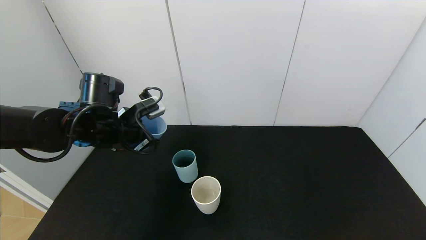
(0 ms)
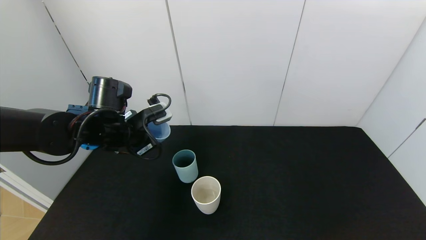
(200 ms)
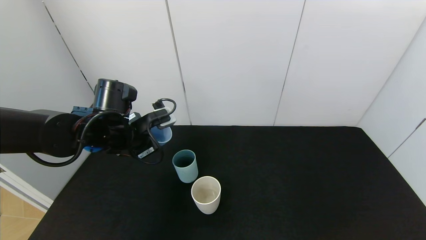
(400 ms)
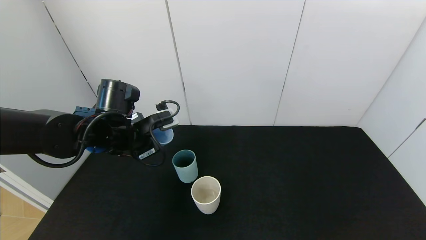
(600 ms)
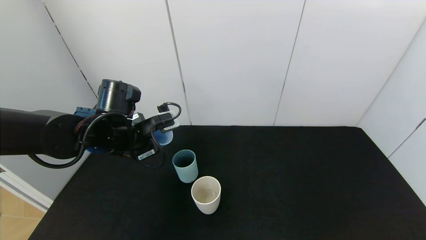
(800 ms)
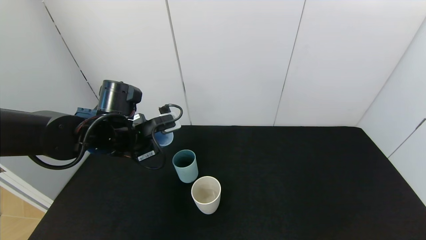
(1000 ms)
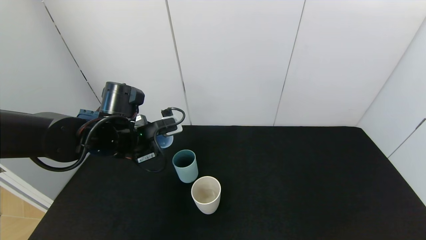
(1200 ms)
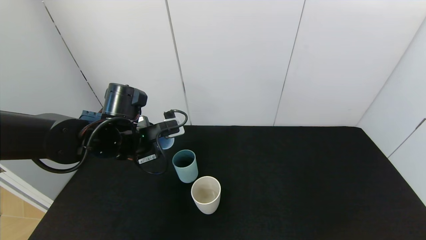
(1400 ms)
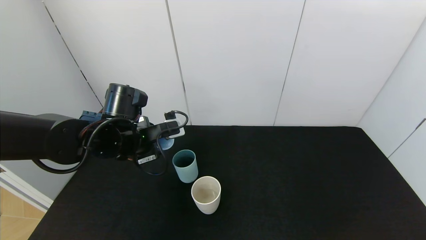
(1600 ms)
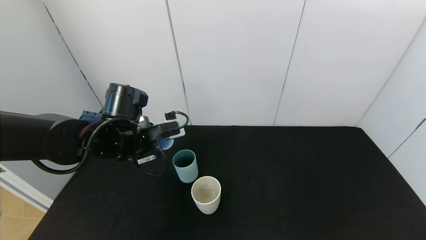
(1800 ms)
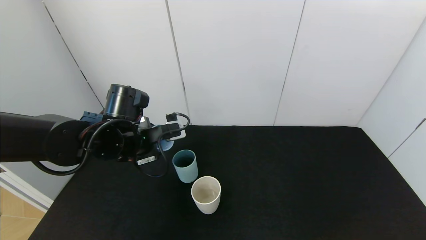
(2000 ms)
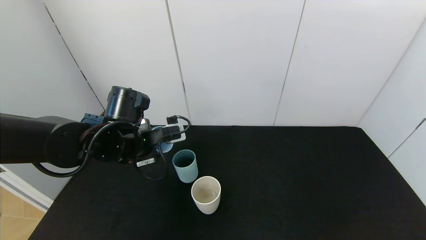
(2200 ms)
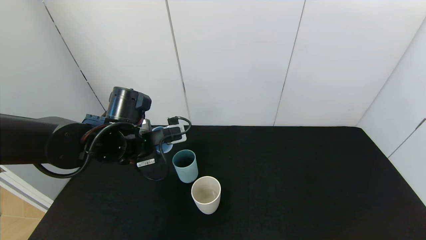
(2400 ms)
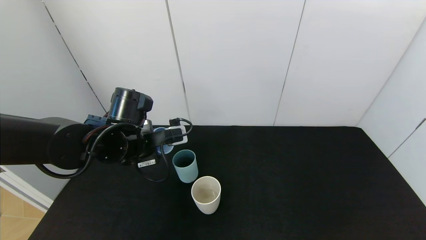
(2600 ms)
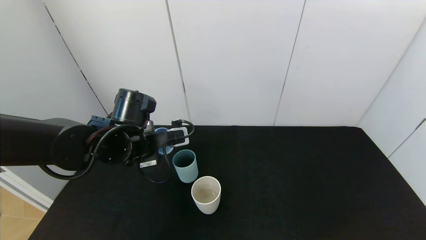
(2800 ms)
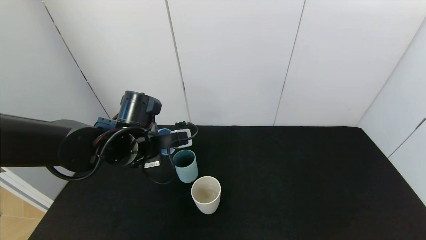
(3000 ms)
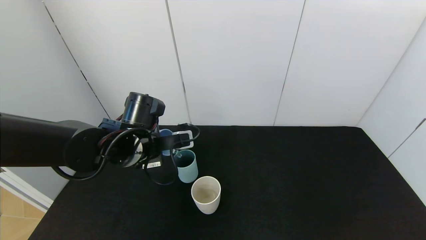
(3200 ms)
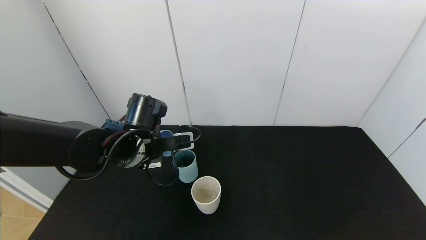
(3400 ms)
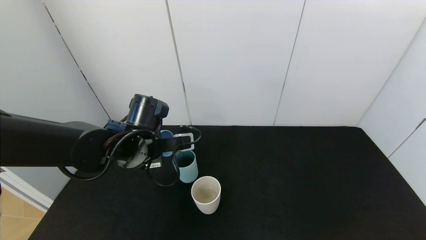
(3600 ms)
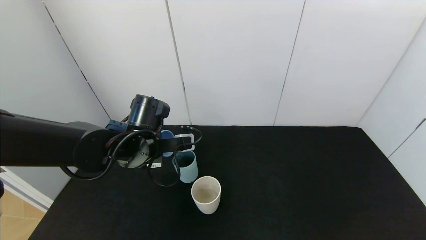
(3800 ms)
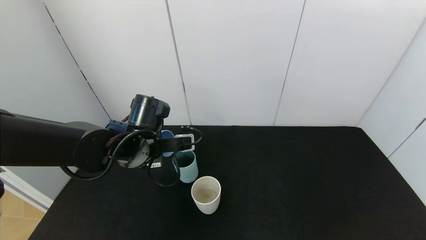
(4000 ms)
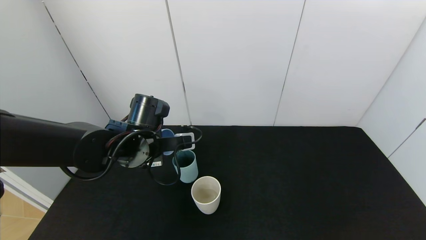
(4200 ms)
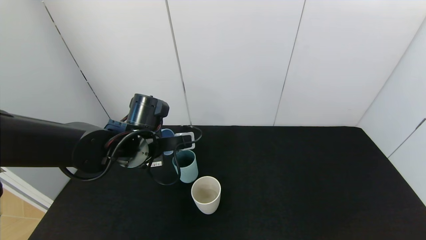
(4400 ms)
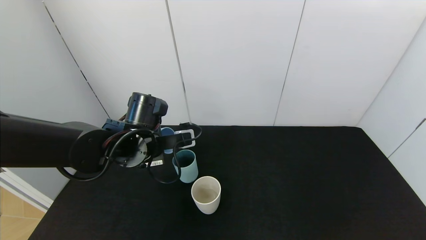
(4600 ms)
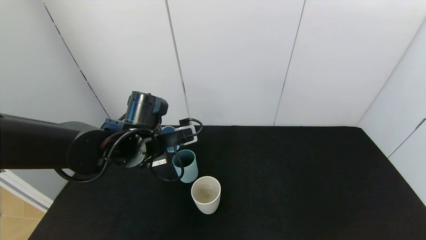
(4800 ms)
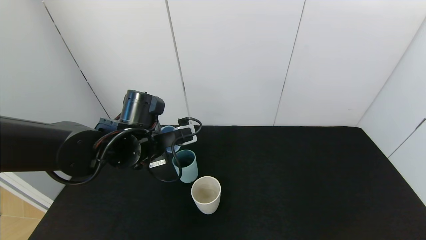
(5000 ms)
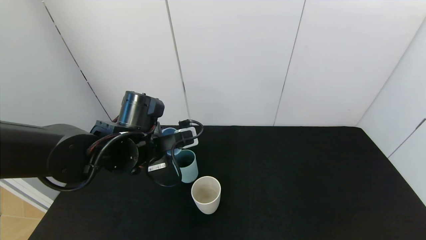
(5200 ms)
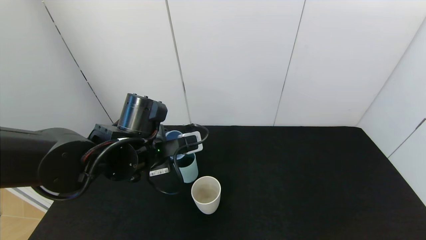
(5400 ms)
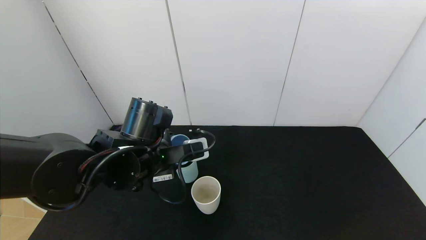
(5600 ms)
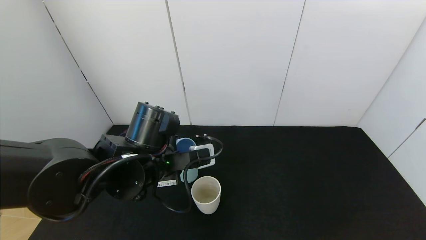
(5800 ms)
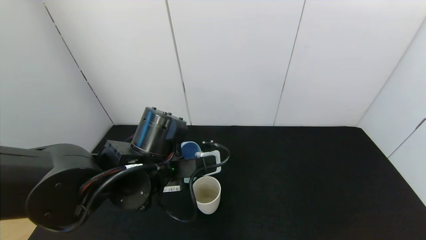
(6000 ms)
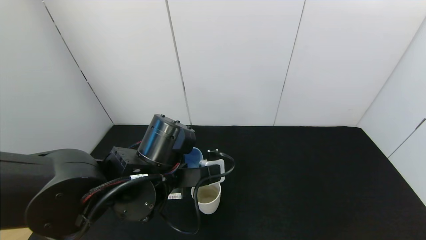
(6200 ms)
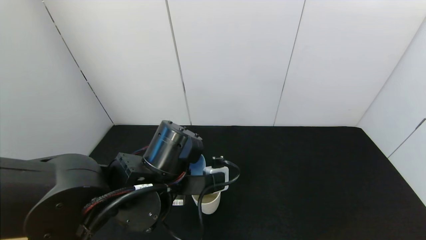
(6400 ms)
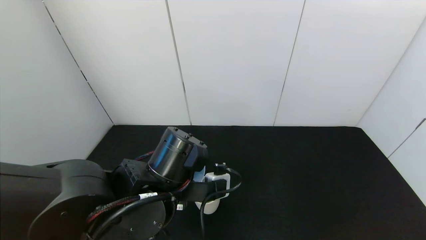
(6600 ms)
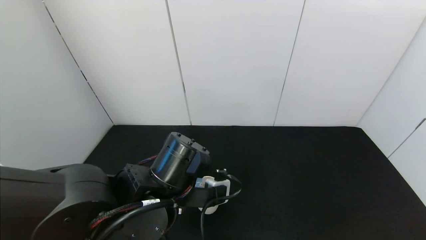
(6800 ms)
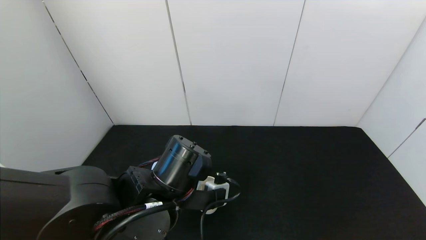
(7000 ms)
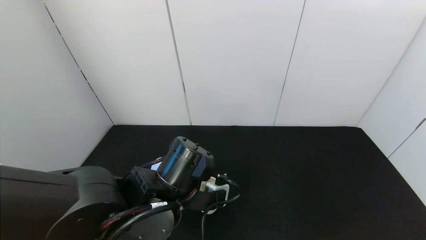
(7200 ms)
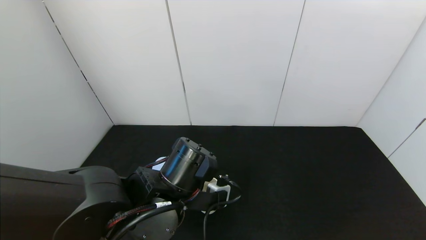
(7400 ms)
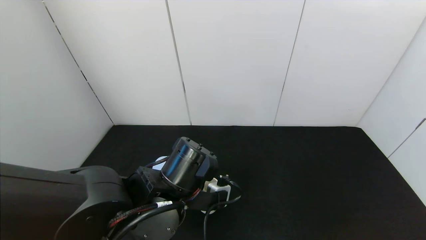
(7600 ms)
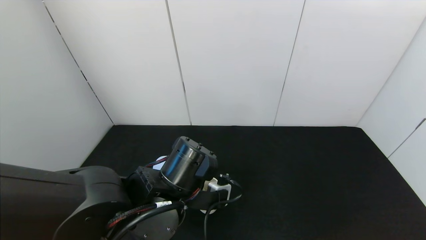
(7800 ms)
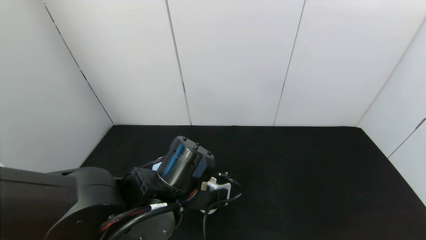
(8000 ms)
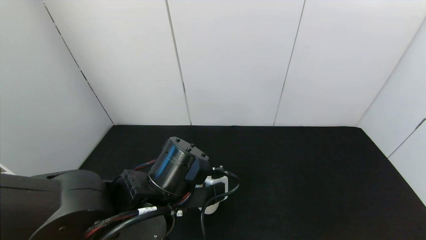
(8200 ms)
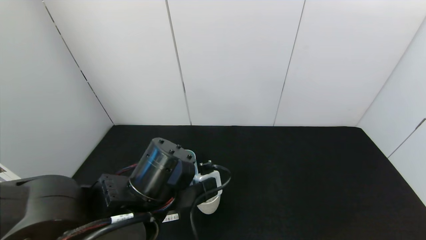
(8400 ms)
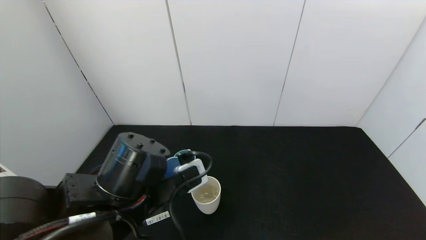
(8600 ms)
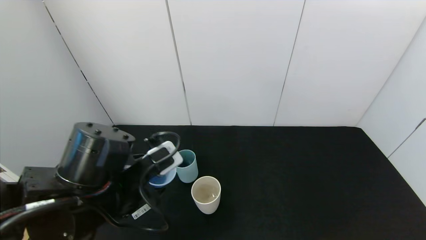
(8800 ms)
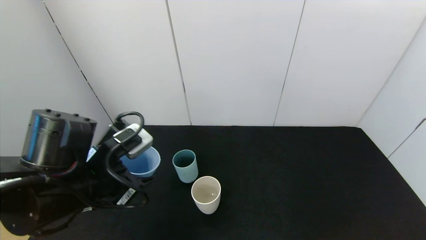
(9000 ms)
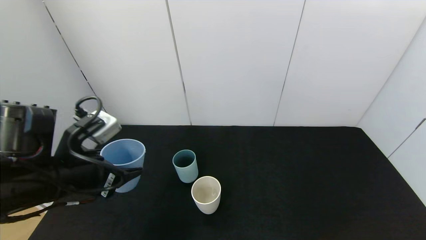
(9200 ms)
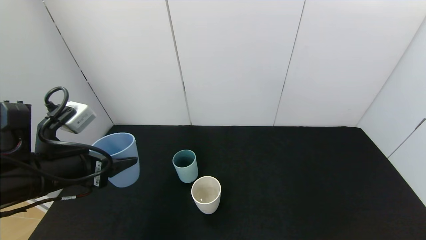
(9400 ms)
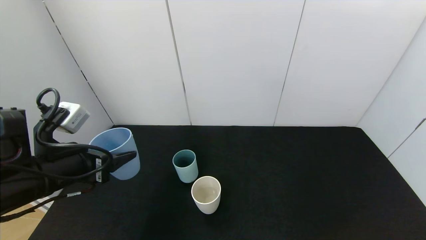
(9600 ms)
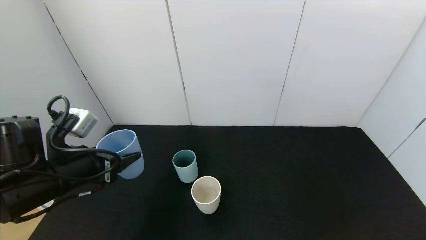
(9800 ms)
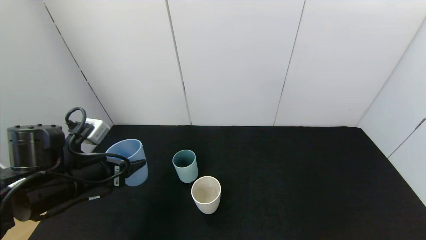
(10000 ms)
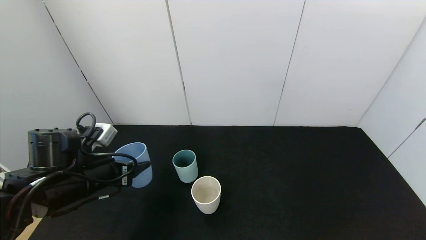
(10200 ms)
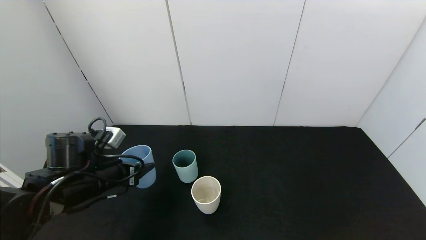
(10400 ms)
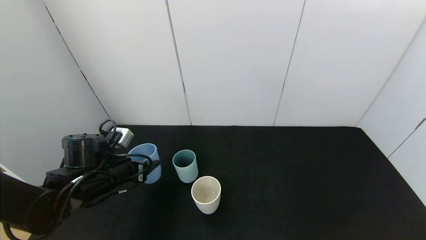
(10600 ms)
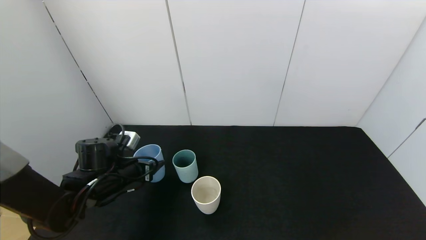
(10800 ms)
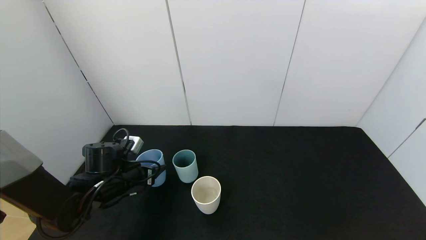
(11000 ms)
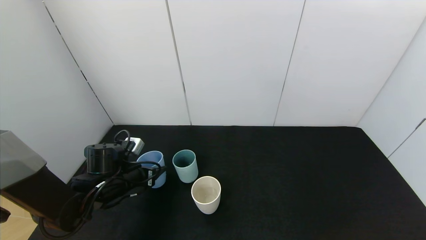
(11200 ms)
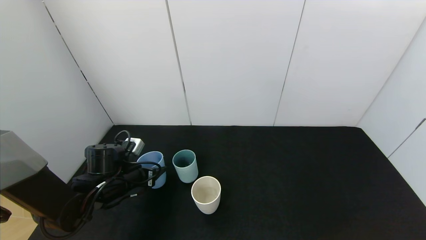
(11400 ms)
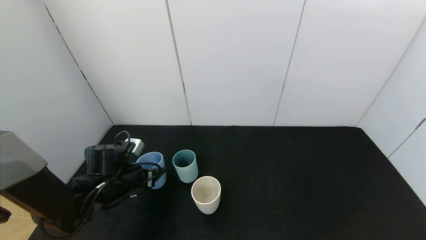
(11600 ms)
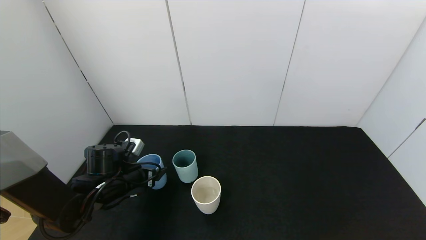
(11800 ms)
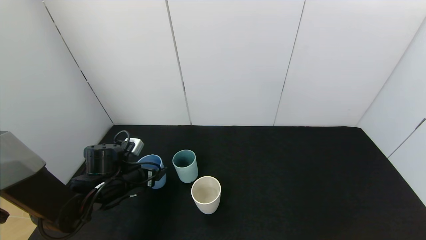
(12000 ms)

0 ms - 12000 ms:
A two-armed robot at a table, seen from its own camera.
Task of the whole recording: use the gripper to pour the water into the other two cups on black table.
Step, 0 ms - 5600 ms: Pour water from blue cup to green cup with the left gripper.
Step, 5800 ms - 8600 ms: Pour water from blue cup to white cup with the left gripper.
1600 ms - 4400 ms: There are only small adjustments of the grippers.
4400 ms - 6000 ms: The left gripper heads backward and to the right, covering approximately 10 cm.
6000 ms - 7600 ms: The grippers move only a little.
7600 ms - 9000 ms: The left gripper shifts approximately 10 cm to the left.
9000 ms - 10400 ms: The left gripper moves downward, forward and to the left, roughly 10 cm.
10400 ms - 12000 ms: The left gripper goes about 5 cm downward, and opens.

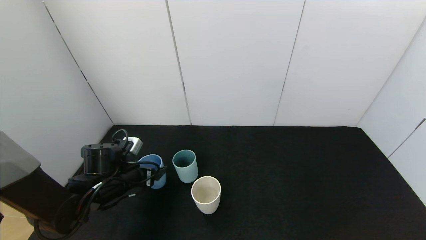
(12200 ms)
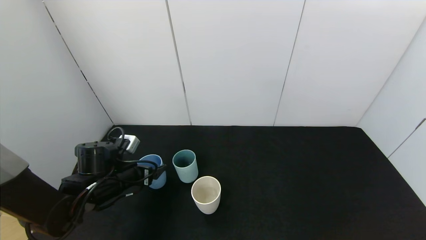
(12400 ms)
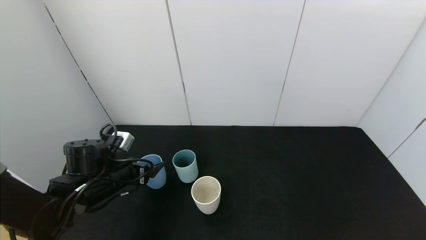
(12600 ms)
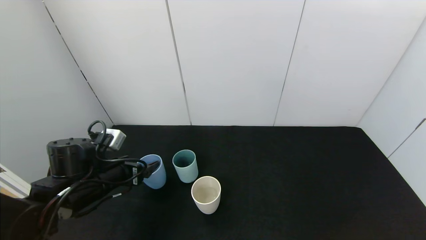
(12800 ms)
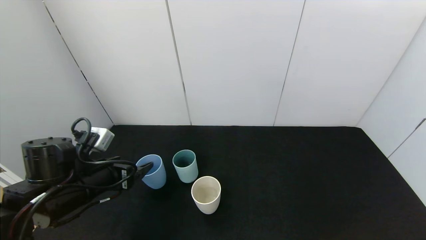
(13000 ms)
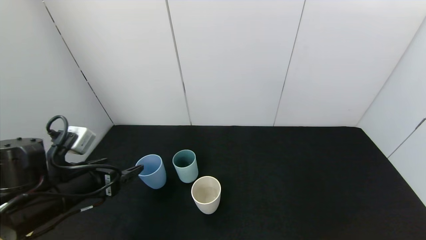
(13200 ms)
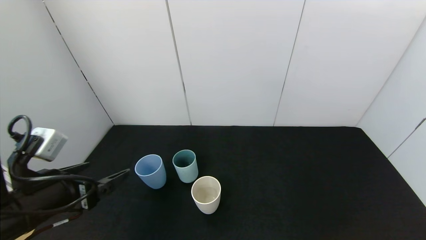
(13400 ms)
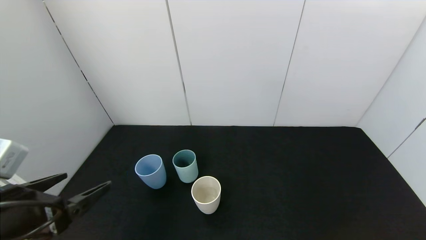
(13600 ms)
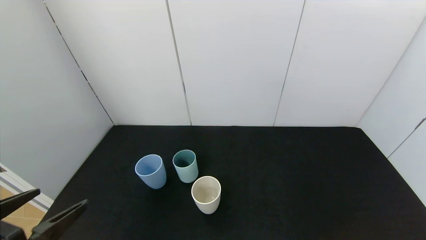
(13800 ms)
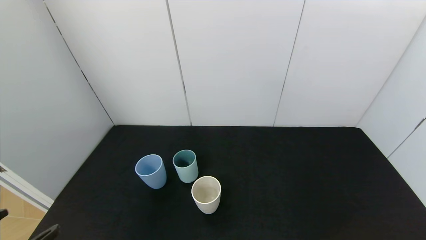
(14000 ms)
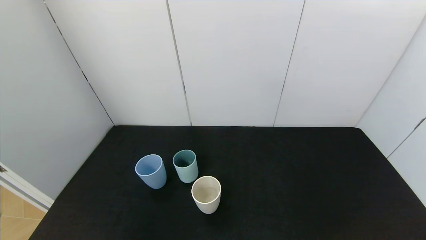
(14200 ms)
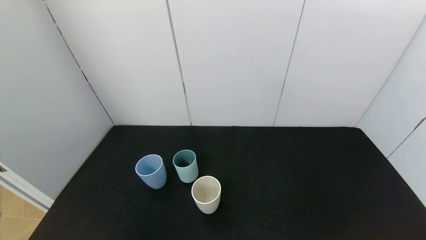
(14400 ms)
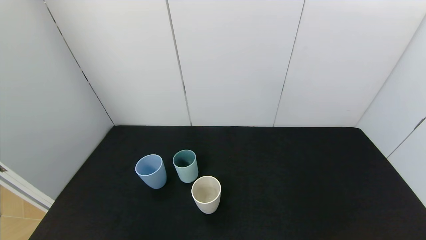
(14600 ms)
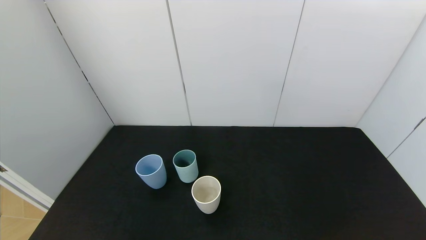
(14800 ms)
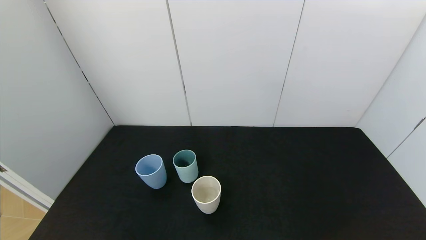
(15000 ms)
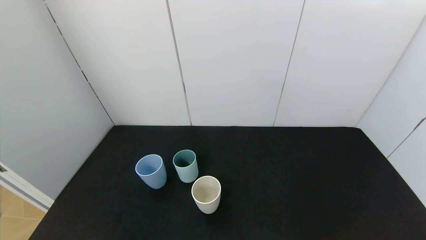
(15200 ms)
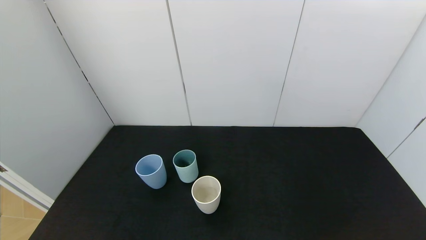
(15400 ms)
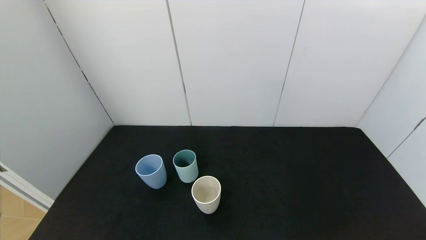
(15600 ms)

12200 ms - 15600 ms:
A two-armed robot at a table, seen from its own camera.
Task of the whole recording: use the gripper to pour the water into the other two cups on black table.
12200 ms - 13800 ms: The left gripper travels backward and upward by roughly 25 cm.
13800 ms - 15600 ms: The left gripper heads downward and backward, covering some 15 cm.

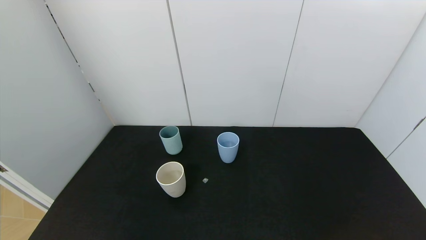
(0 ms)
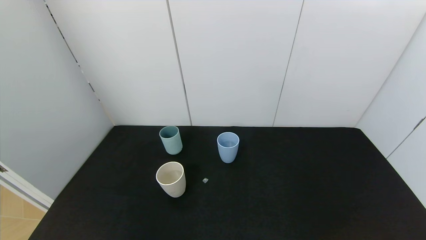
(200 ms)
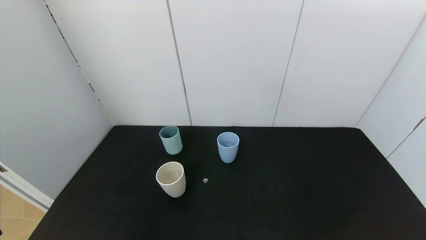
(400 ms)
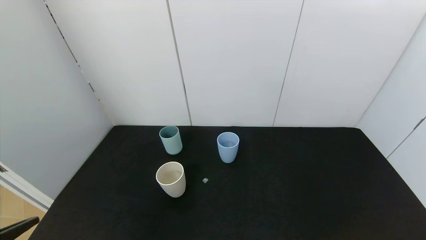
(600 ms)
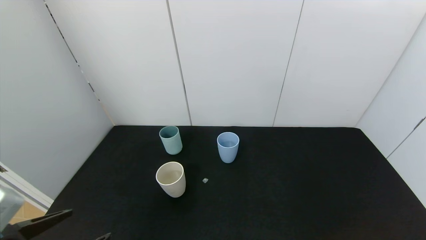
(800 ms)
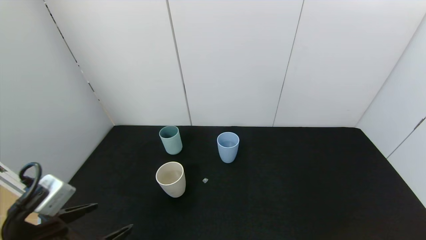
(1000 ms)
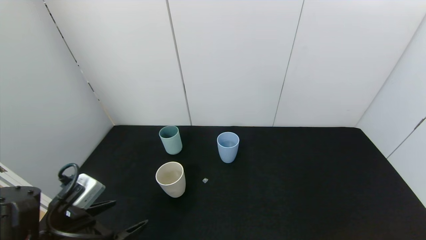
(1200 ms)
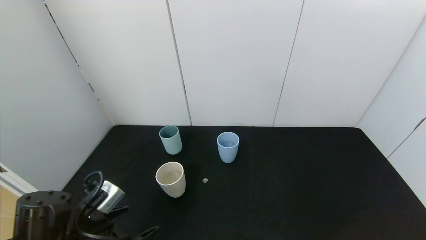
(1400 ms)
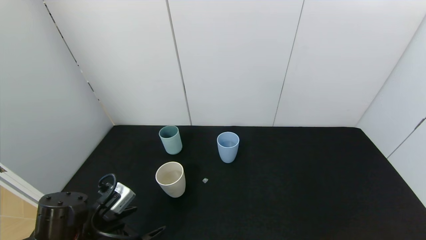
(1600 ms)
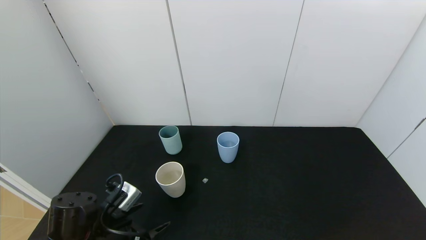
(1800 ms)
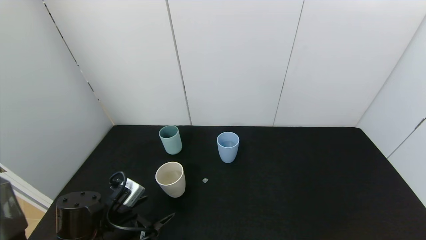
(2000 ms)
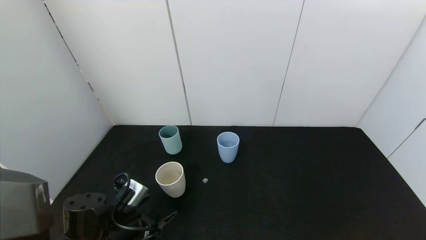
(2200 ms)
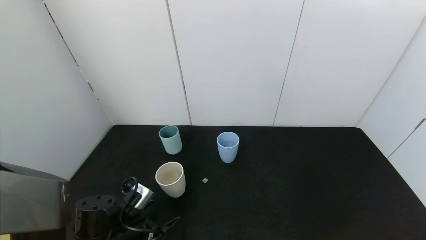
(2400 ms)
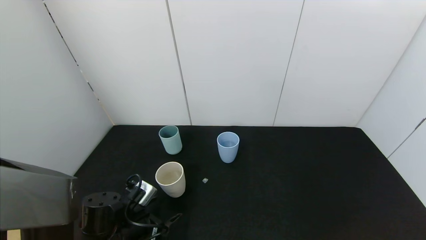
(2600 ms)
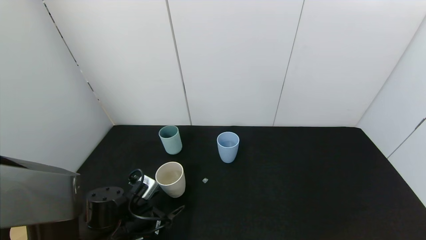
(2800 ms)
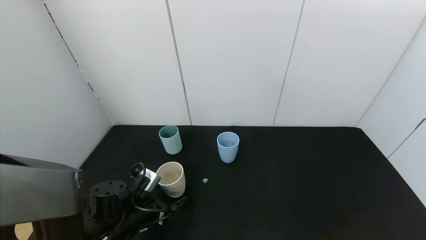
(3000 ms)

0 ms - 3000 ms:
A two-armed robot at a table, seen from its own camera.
Task of the whole recording: use the gripper to pour the water into the other two cups on black table.
0 ms - 1600 ms: The left gripper heads forward, covering roughly 20 cm.
1600 ms - 3000 ms: The left gripper heads forward, covering about 5 cm.
